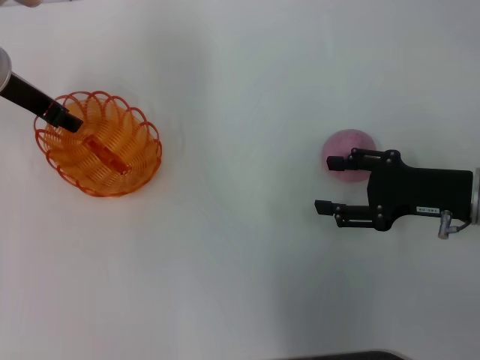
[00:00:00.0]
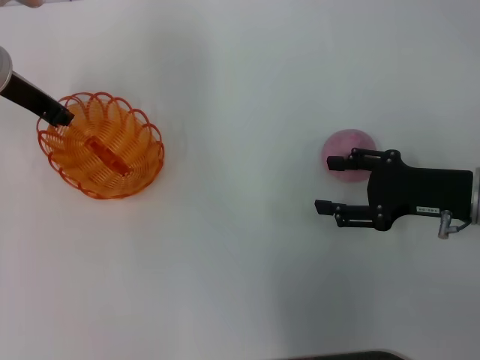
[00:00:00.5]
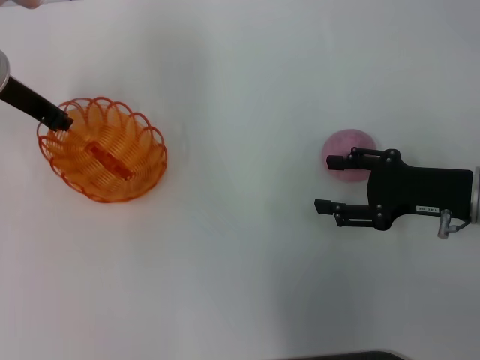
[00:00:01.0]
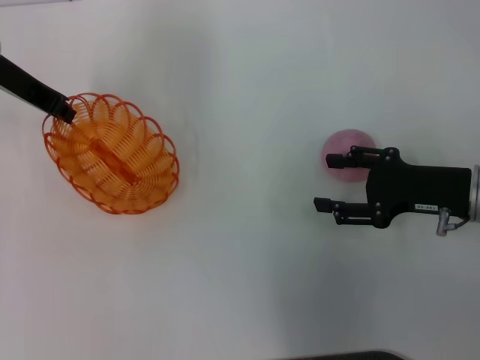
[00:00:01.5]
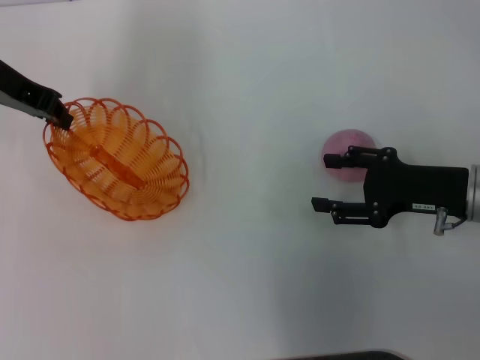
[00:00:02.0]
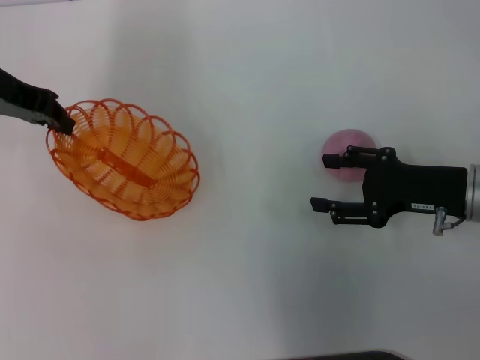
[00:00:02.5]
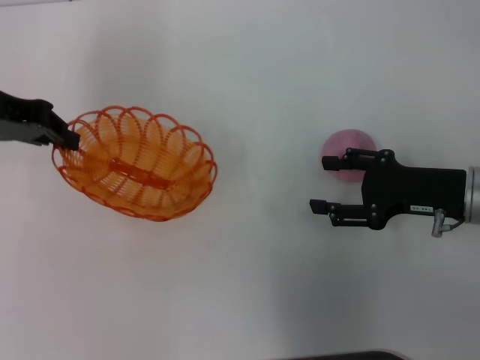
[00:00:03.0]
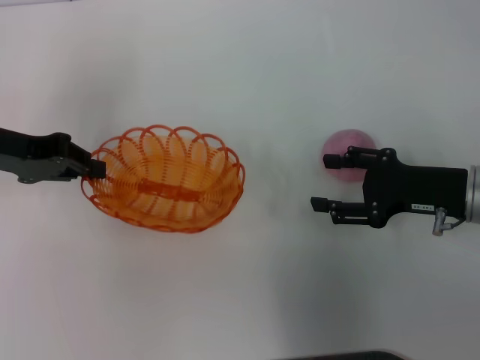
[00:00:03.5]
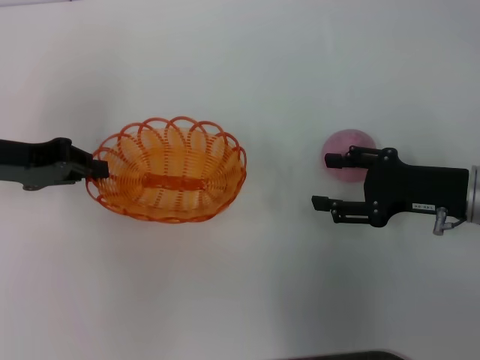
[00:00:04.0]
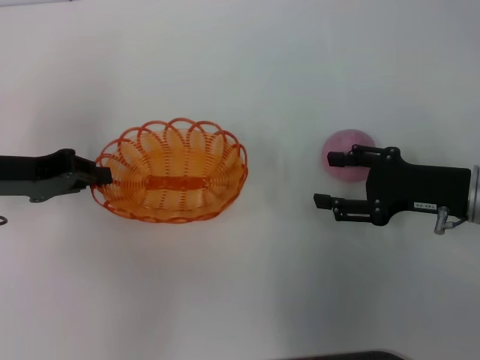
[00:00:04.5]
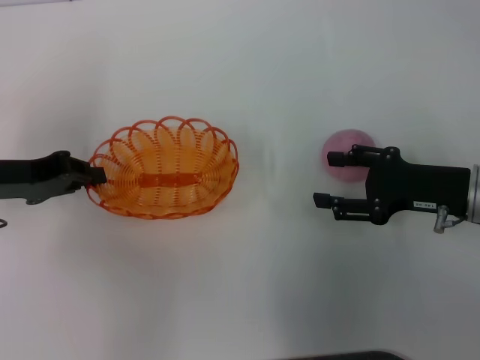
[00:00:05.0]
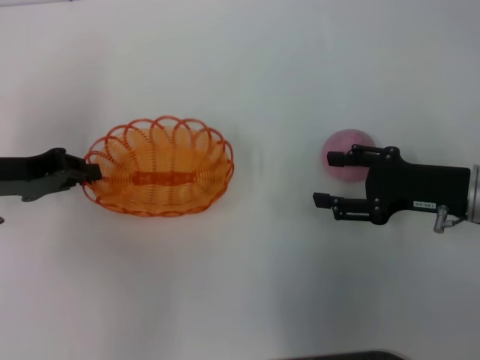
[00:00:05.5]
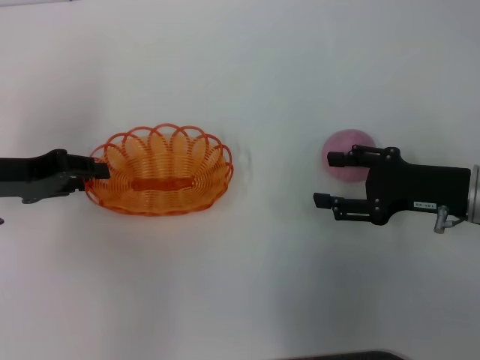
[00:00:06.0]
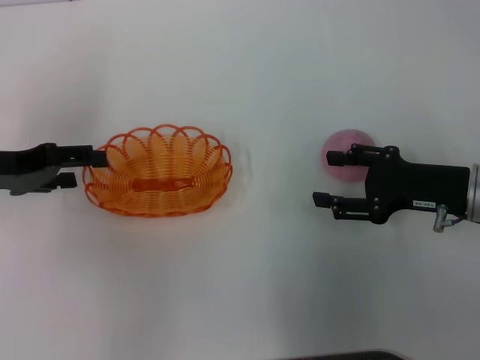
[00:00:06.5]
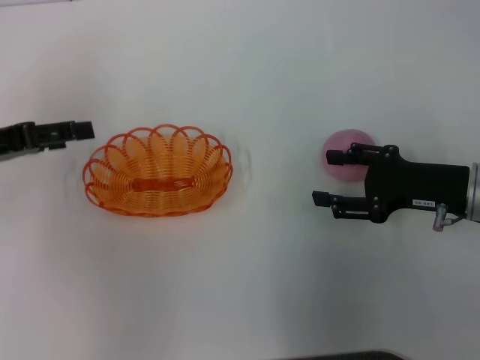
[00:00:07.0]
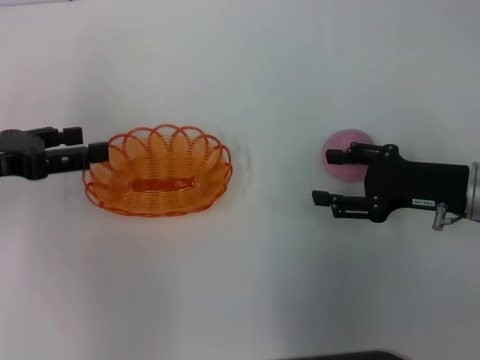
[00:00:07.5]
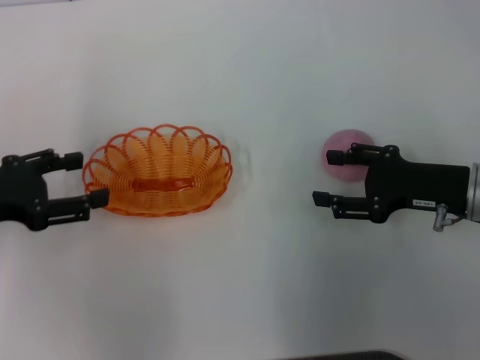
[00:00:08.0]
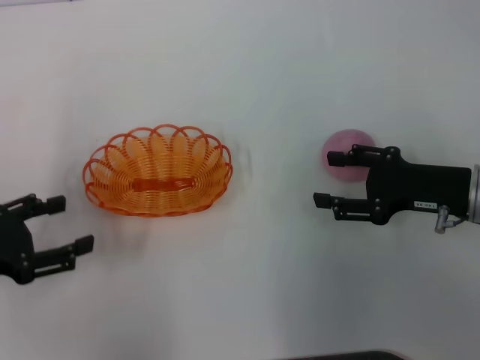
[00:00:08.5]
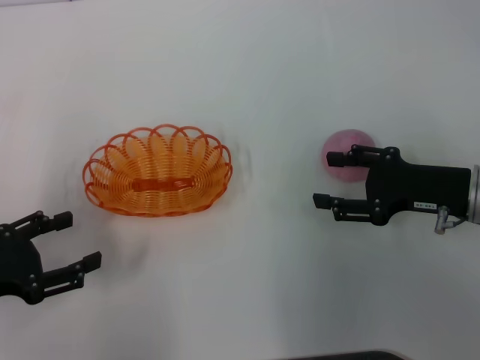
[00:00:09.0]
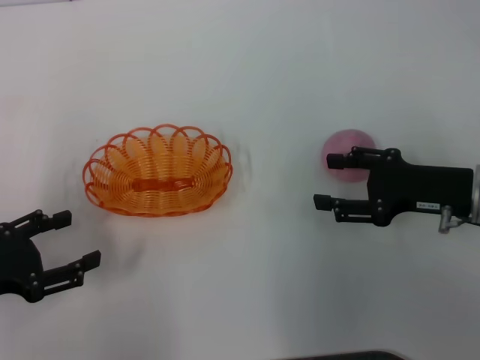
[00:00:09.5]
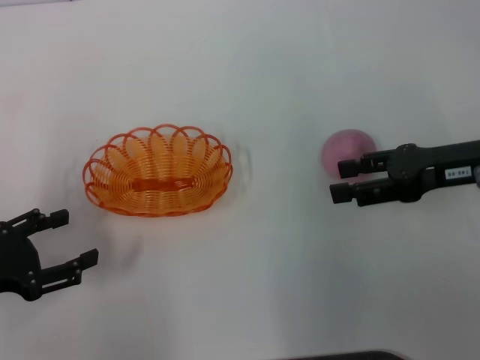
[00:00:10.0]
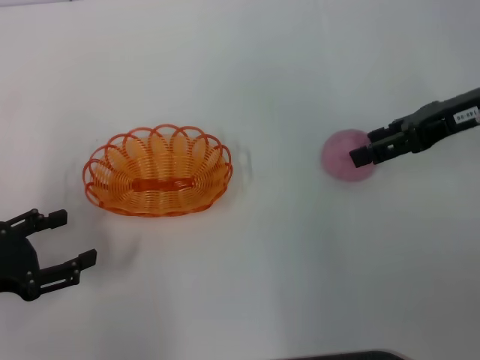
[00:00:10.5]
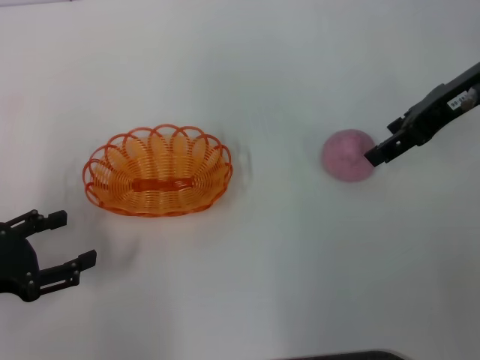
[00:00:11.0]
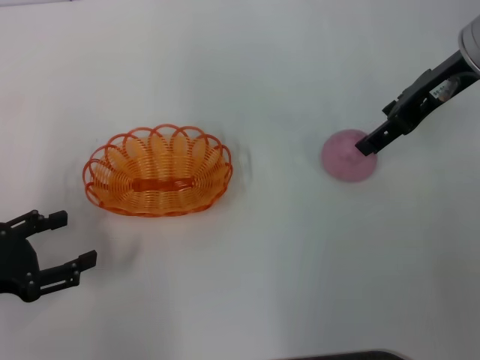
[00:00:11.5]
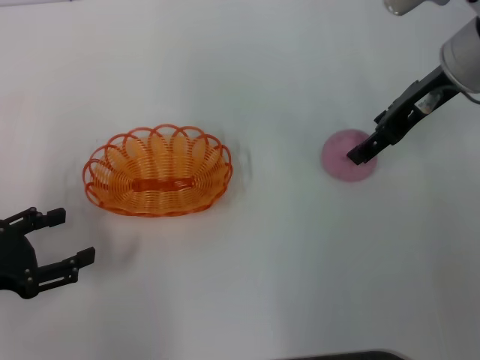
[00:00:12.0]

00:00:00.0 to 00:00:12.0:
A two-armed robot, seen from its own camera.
Step, 00:00:02.0 to 00:00:06.5: Place the basket in the center of view with the left gripper.
00:00:00.0 to 00:00:02.0: The left gripper closes its fingers.
00:00:02.0 to 00:00:04.0: The left gripper heads backward and downward, covering approximately 10 cm.
00:00:04.0 to 00:00:06.0: The grippers move only a little.
00:00:06.0 to 00:00:08.0: The left gripper ends up some 5 cm from where it was, and opens.
00:00:08.0 to 00:00:10.0: The left gripper heads backward, covering roughly 5 cm; the right gripper goes some 5 cm upward.
00:00:10.0 to 00:00:12.0: The right gripper shifts some 10 cm forward, to the left and upward.

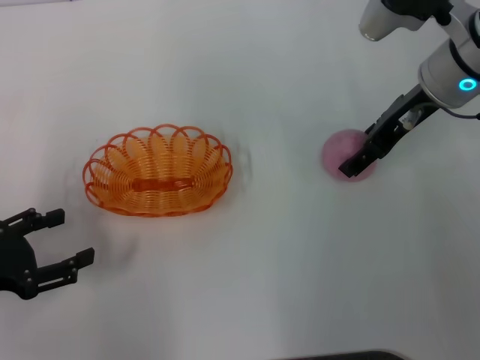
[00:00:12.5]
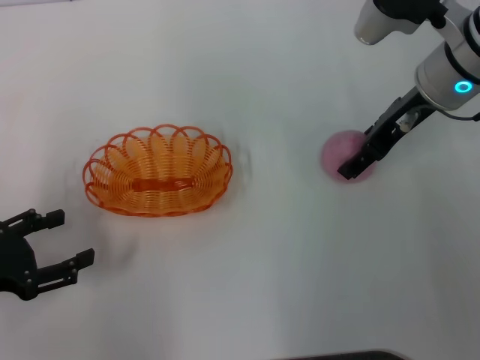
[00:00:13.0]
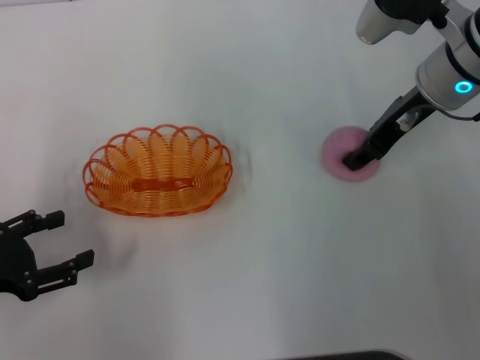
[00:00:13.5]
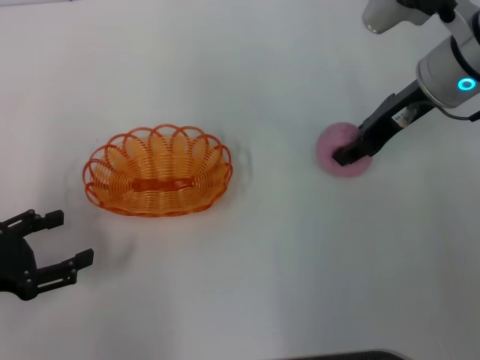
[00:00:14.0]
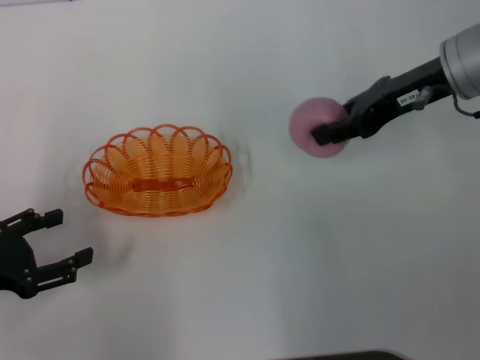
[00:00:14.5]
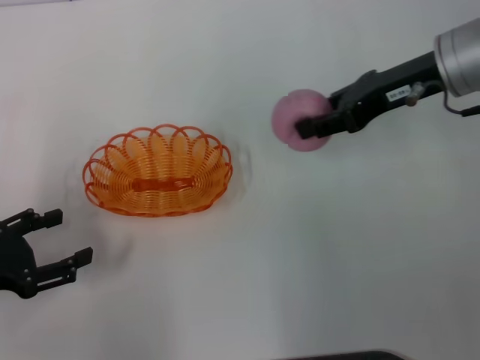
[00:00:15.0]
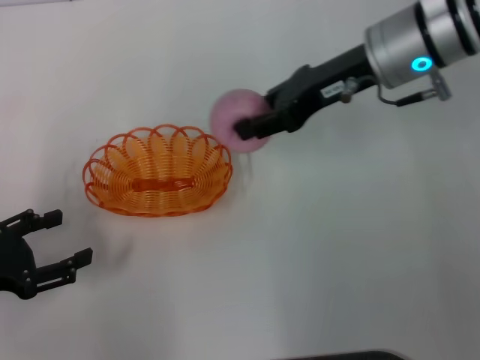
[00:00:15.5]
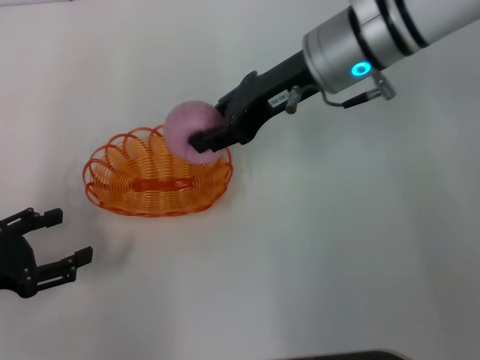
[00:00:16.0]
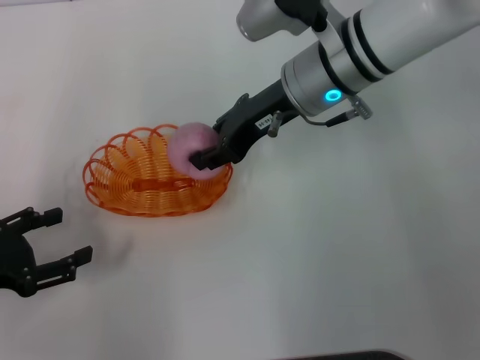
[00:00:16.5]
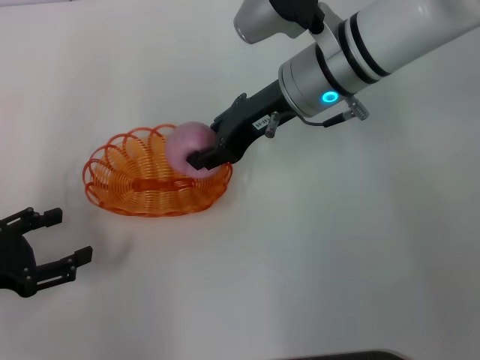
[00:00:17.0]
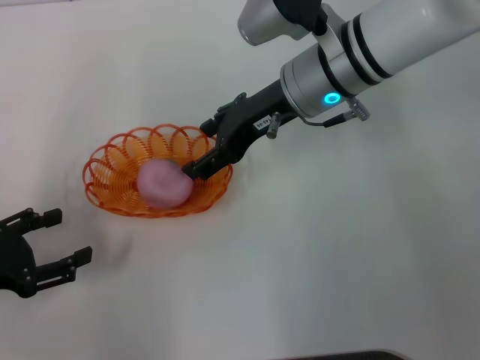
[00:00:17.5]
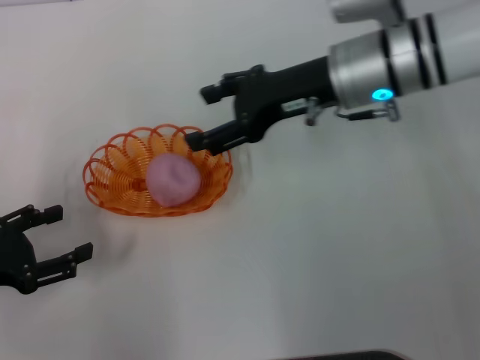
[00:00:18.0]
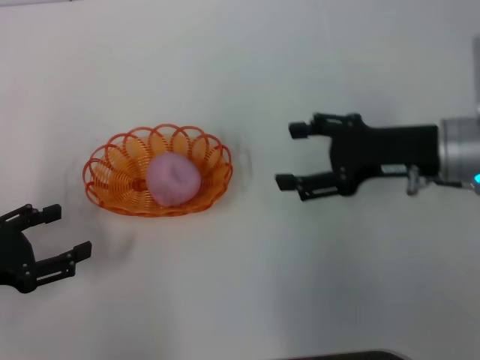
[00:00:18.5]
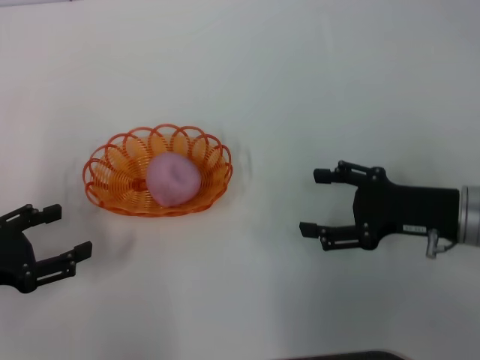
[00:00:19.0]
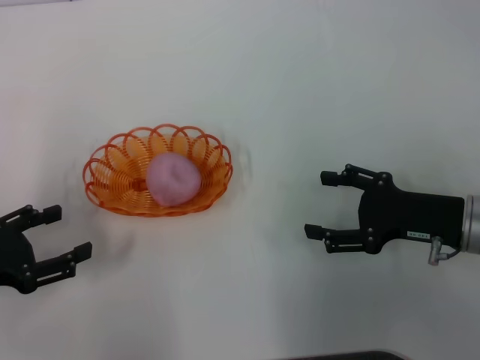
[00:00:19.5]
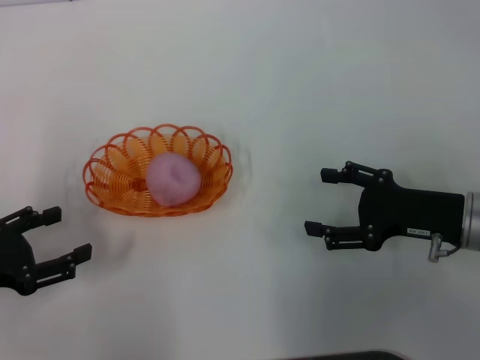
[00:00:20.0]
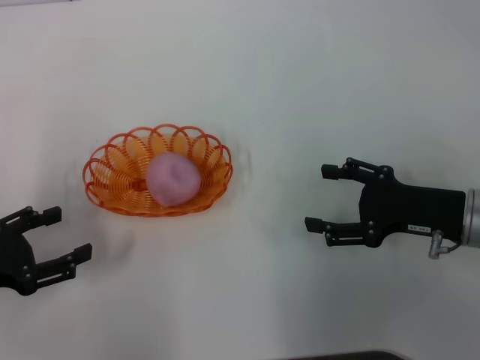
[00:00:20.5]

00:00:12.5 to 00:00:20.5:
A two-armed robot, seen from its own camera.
Step, 00:00:12.5 to 00:00:14.5: Pick up the peach with the right gripper.
Step, 00:00:15.5 to 00:00:18.0: Place the peach into the basket with the right gripper.
00:00:12.5 to 00:00:14.5: The left gripper closes, then opens again; the right gripper closes.
00:00:14.5 to 00:00:16.5: The right gripper is displaced to the left by approximately 15 cm.
00:00:16.5 to 00:00:18.5: The right gripper is displaced to the right and backward by approximately 15 cm, and opens its fingers.
00:00:18.5 to 00:00:20.5: The right gripper moves downward and backward, roughly 10 cm.
